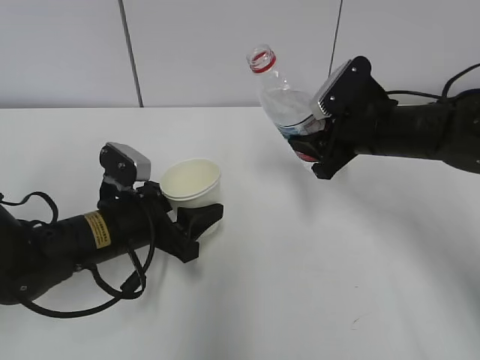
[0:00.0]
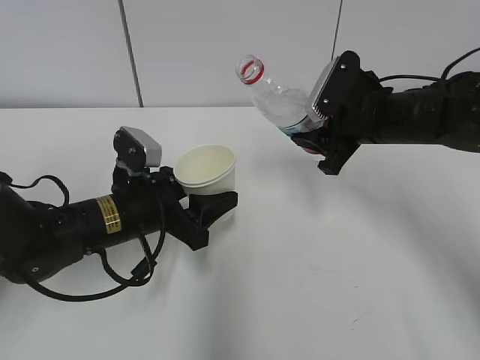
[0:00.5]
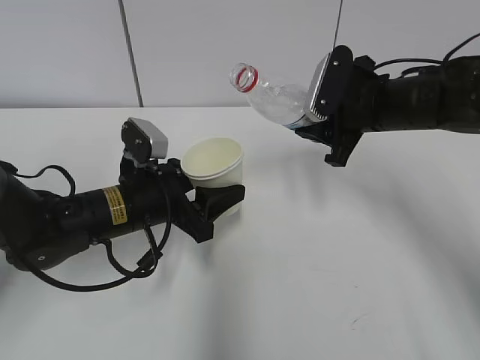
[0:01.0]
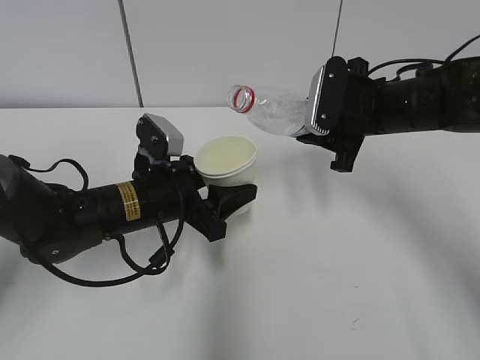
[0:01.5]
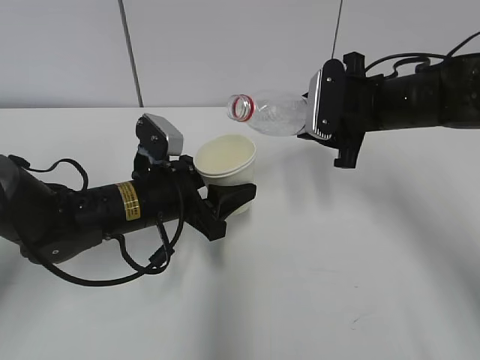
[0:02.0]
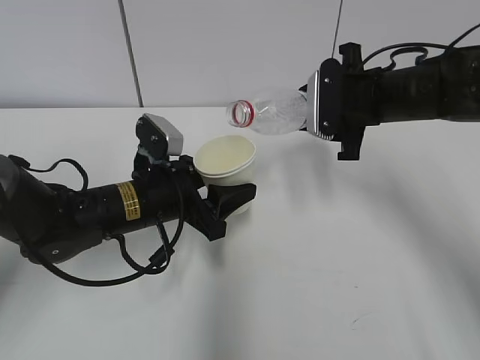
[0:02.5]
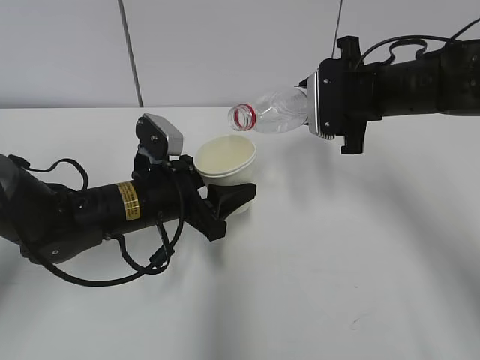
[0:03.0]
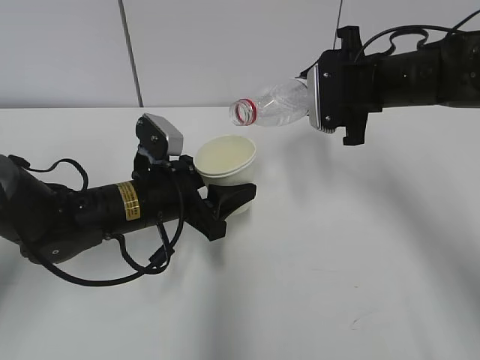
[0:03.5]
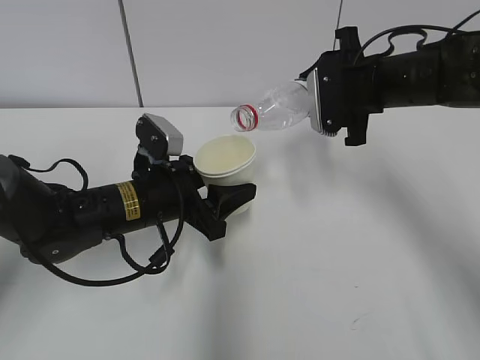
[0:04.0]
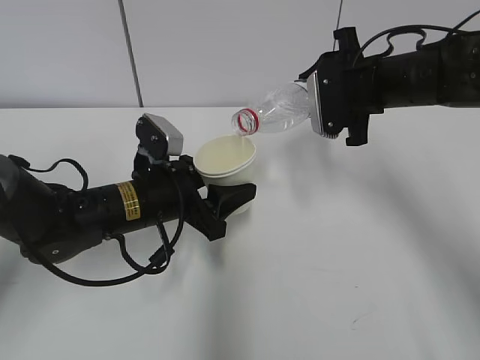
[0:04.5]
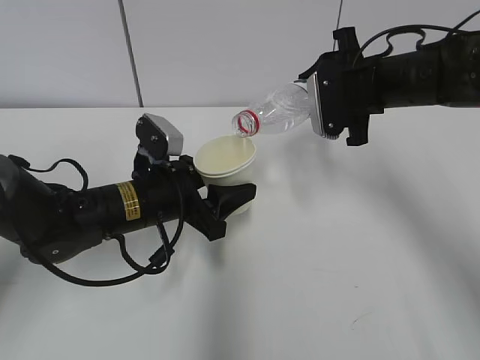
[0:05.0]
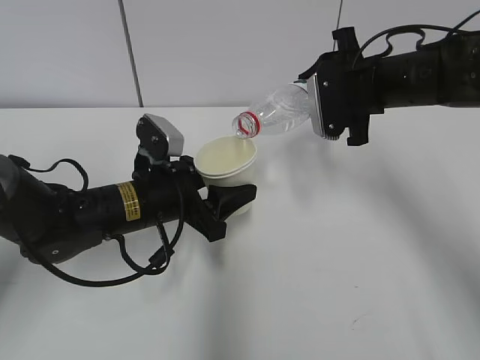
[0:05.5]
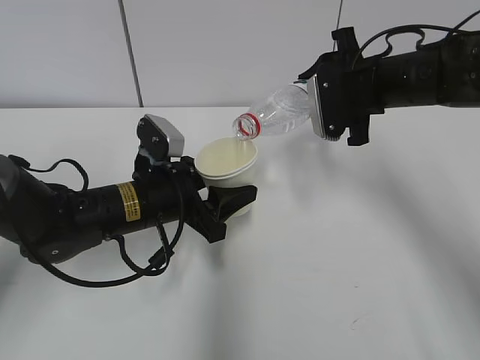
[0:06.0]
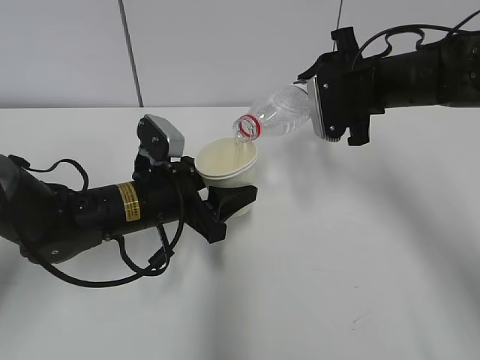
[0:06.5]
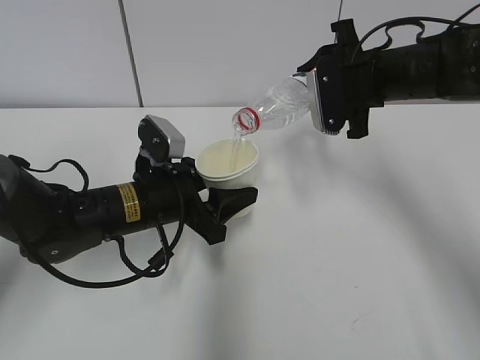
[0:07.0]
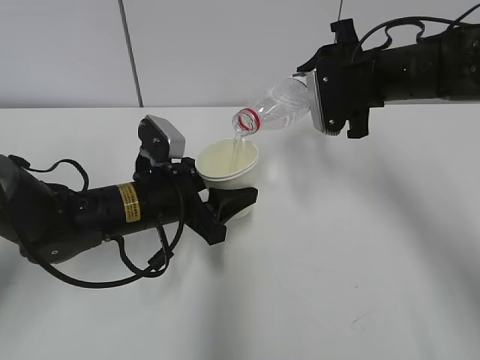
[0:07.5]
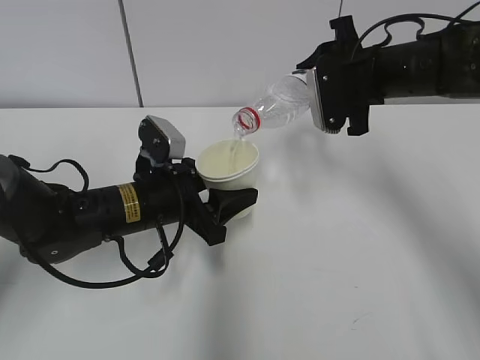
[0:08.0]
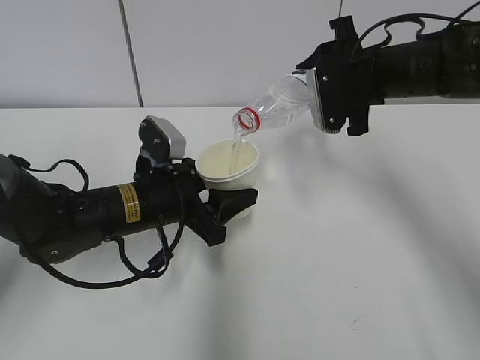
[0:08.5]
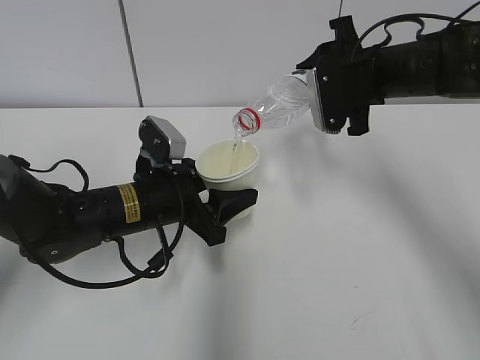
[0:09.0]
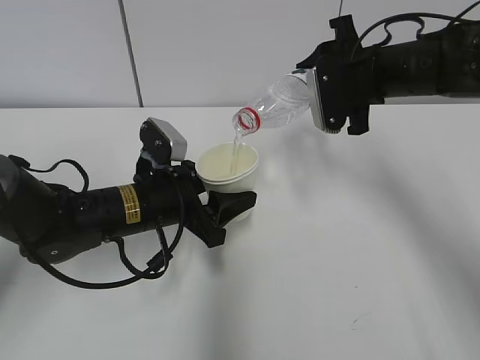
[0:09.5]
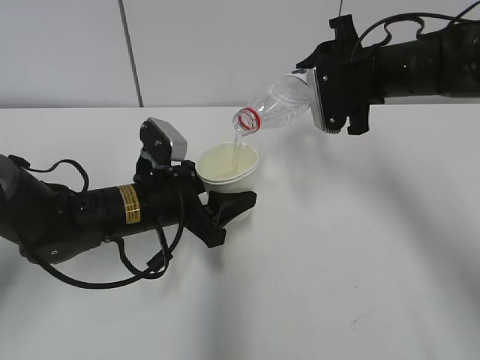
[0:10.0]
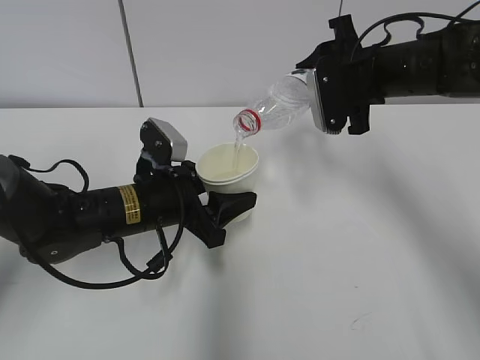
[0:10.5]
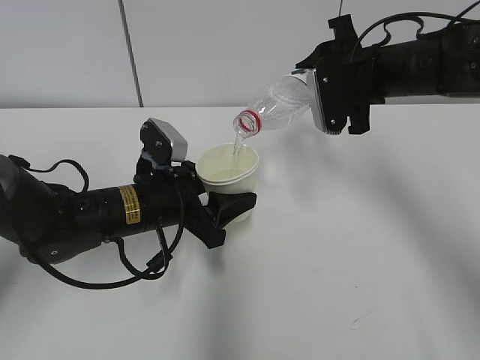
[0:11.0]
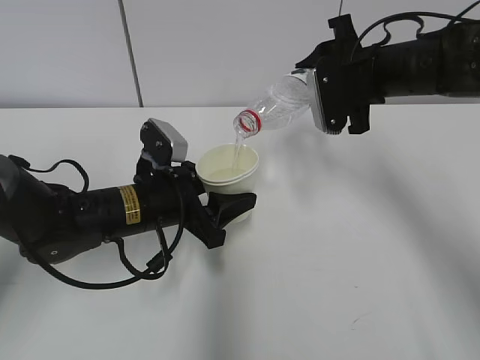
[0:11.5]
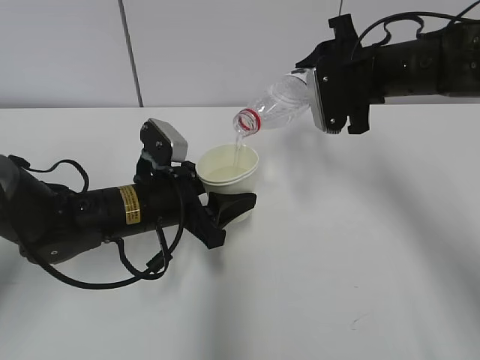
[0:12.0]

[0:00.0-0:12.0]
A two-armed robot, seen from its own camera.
Step, 0:00.0 to 0:02.0: Lift the paper cup with the left hand.
Step, 0:02.5 to 0:08.0: Pour water with the right hand.
Step, 0:08.5 to 0:10.0: Collect water with the right hand.
0:02.0 to 0:04.0: The grippers stay close to where they were, moving slightly.
0:04.0 to 0:06.0: Both grippers stay put.
0:06.0 to 0:10.0: The two grippers keep their place.
0:10.0 to 0:12.0: Neither gripper changes place.

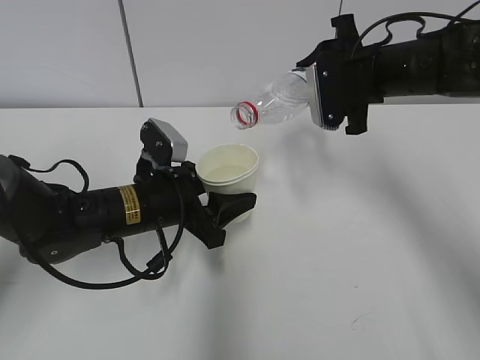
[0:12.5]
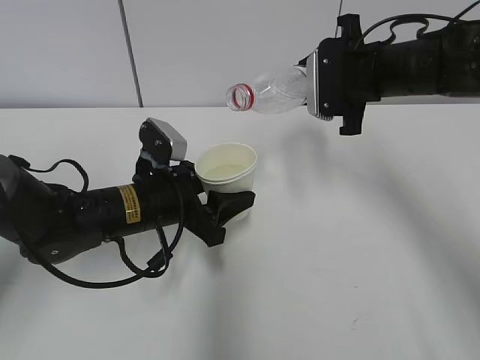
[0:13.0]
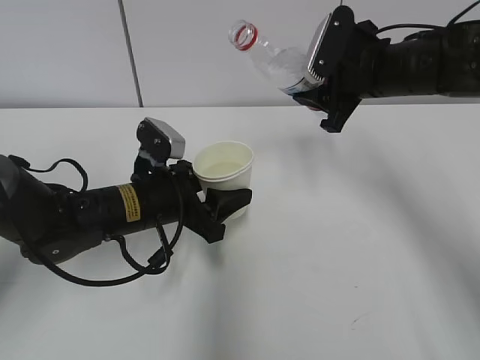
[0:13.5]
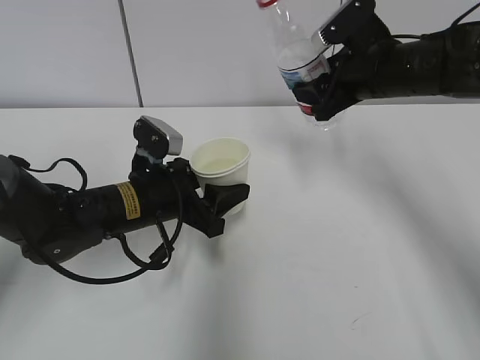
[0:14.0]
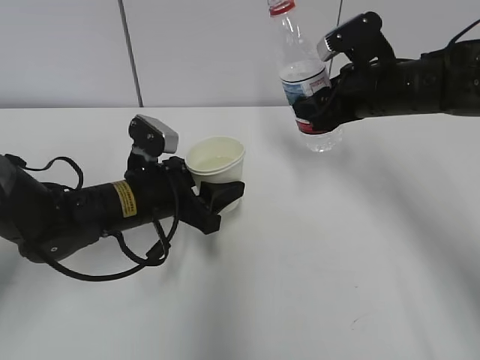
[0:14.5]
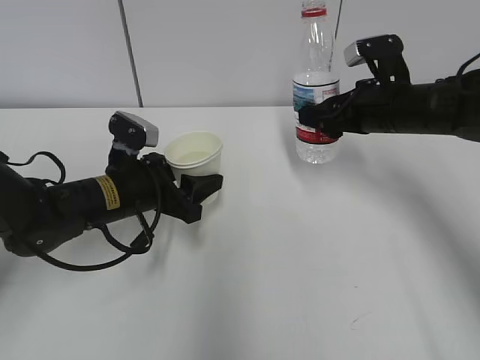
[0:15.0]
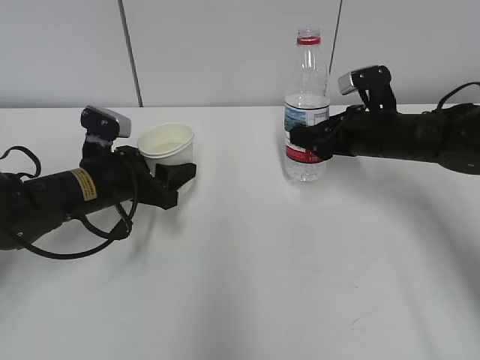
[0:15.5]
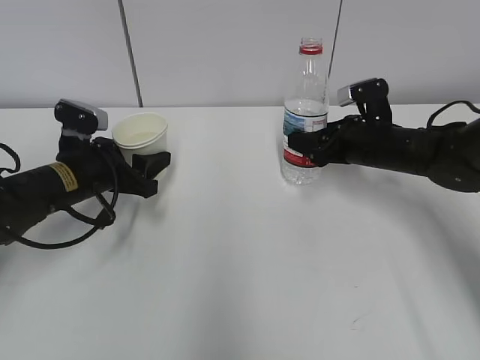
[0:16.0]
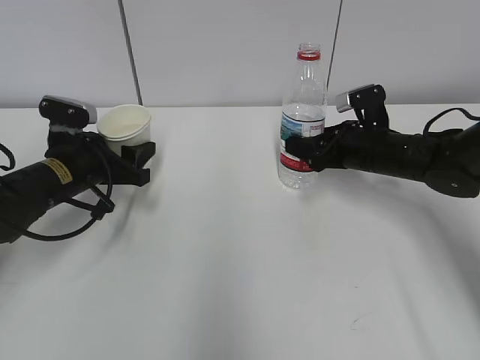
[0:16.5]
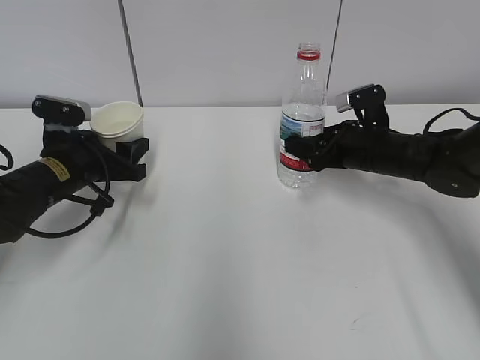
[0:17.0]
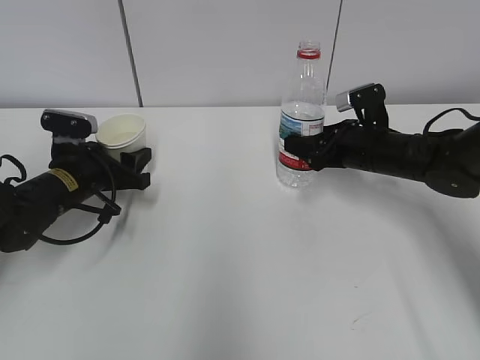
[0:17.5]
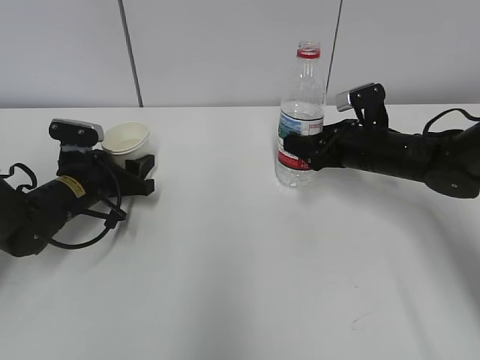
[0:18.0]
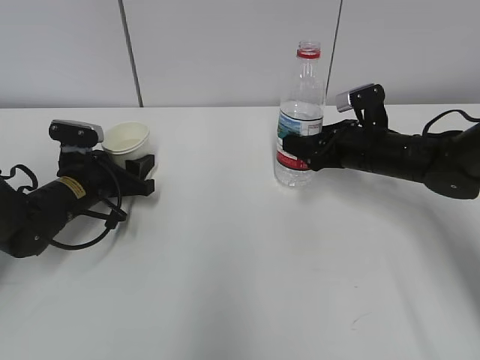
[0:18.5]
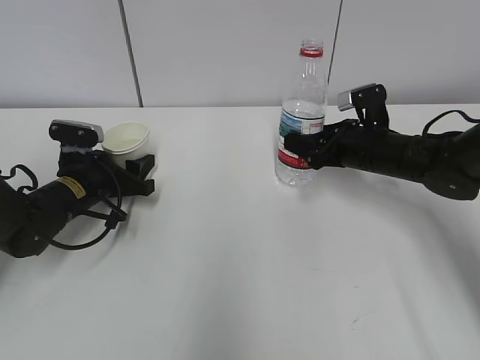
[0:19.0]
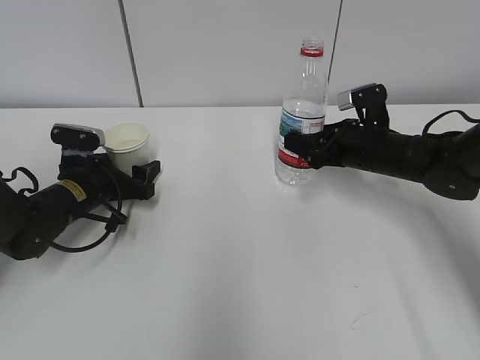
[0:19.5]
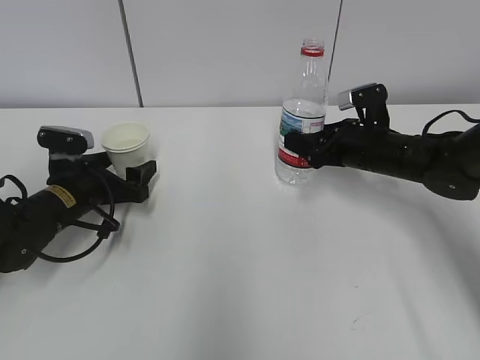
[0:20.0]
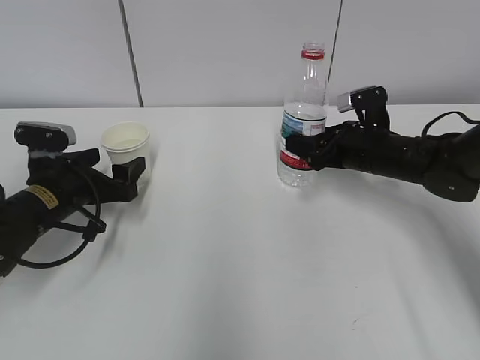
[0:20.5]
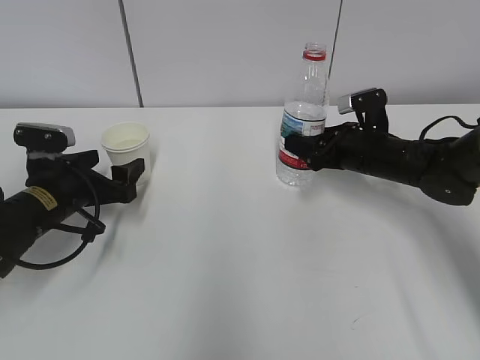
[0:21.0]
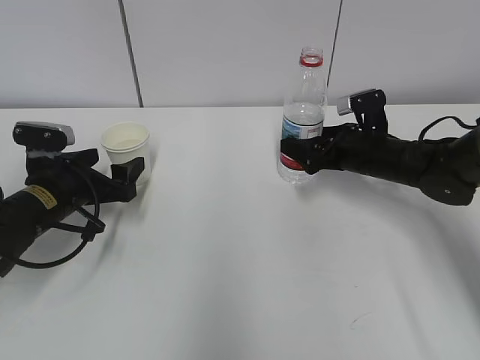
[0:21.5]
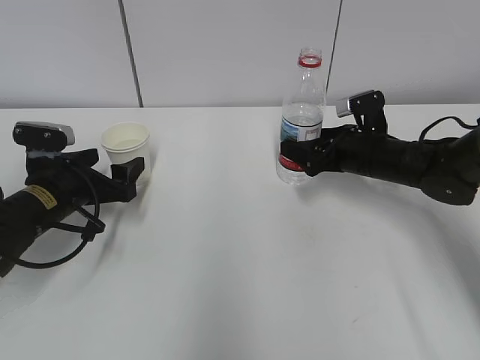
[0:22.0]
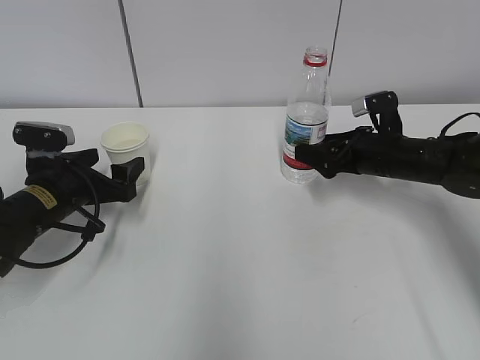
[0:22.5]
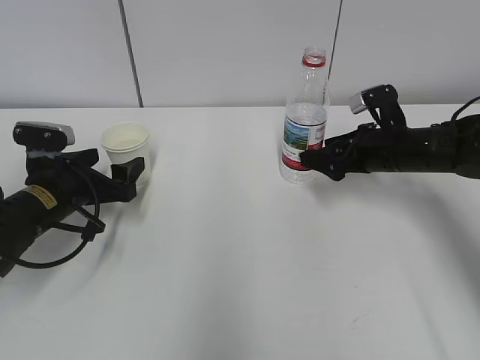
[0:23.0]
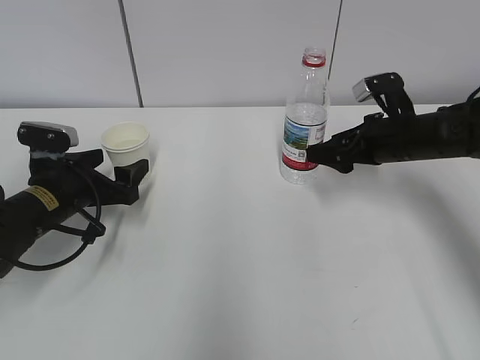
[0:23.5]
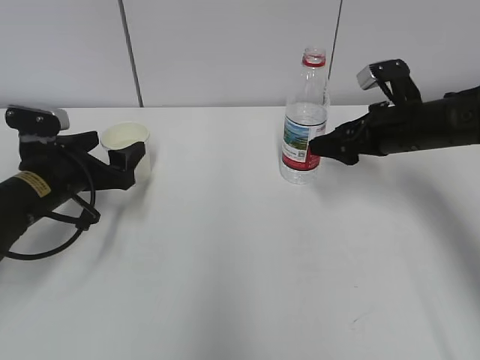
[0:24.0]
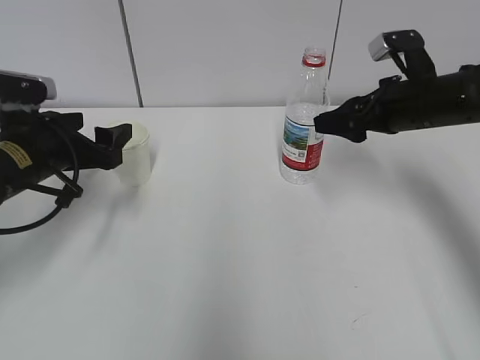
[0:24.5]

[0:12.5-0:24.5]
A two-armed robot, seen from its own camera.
Step, 0:14.0 to 0:15.5: Place the water bottle with the right hand.
0:14.5 to 0:16.5: The right gripper goes about 10 cm downward. Meanwhile the left gripper is displaced to the left by about 10 cm.
0:16.5 to 0:18.5: The left gripper moves about 5 cm.
0:18.5 to 0:20.5: The left gripper moves about 5 cm, and opens its fingers.
0:20.5 to 0:22.5: The right gripper opens.
0:22.5 to 0:24.5: The left gripper heads upward, covering about 5 cm, while the right gripper goes about 10 cm upward.

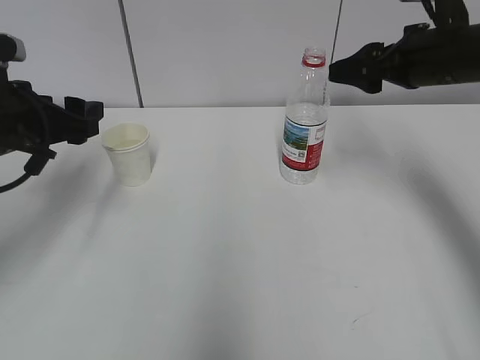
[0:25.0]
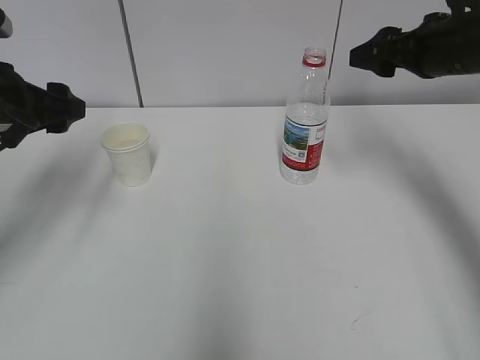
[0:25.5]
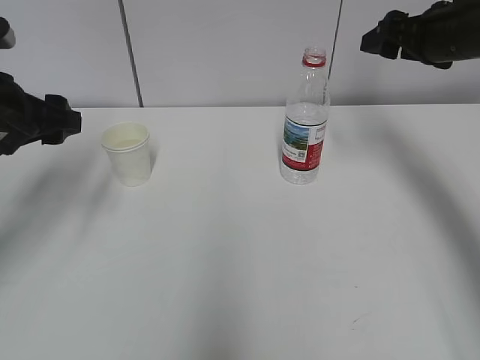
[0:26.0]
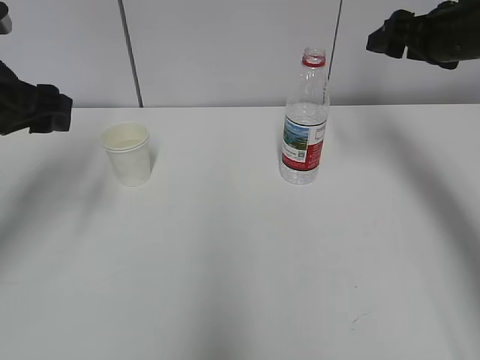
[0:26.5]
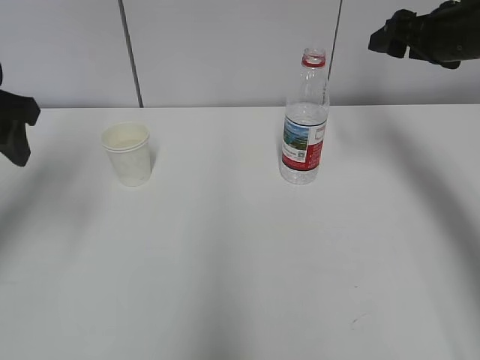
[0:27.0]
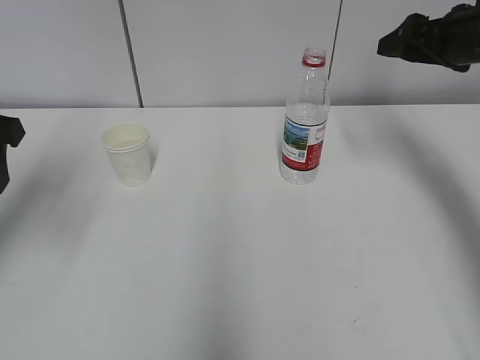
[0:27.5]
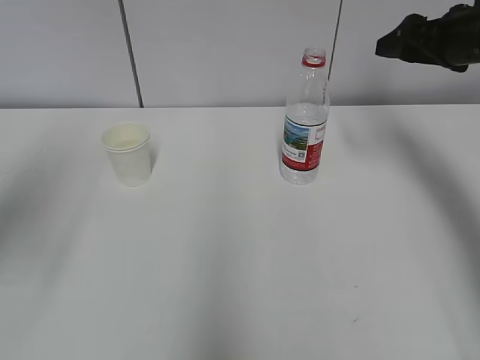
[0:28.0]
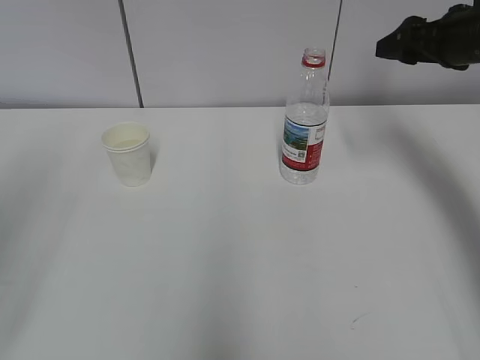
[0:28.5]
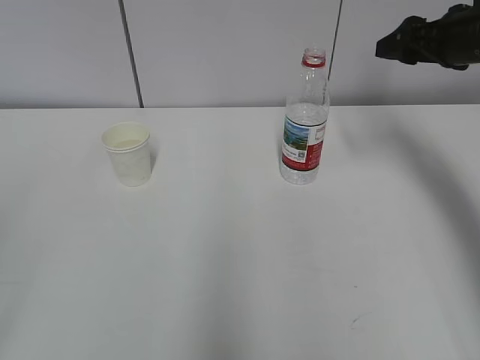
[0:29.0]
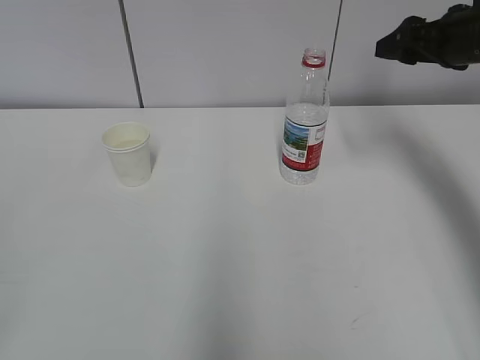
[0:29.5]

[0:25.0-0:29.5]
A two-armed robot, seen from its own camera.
0:25.0 to 0:27.0: The left gripper heads upward, covering roughly 10 cm. Meanwhile the right gripper changes place by roughly 5 cm.
0:27.0 to 0:29.5: The left gripper is displaced backward by approximately 30 cm, and closes.
